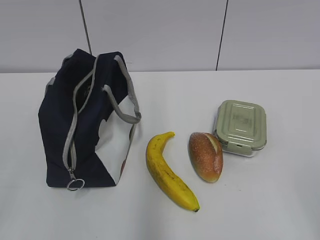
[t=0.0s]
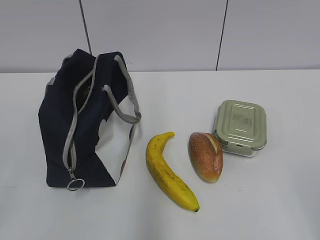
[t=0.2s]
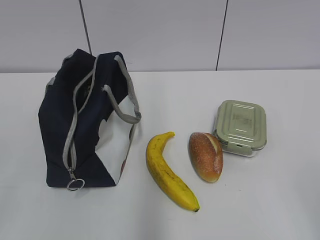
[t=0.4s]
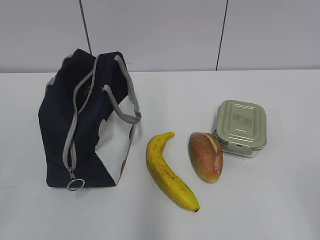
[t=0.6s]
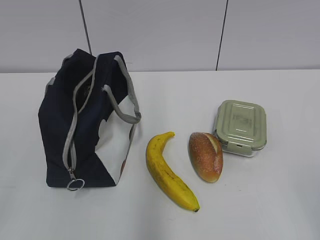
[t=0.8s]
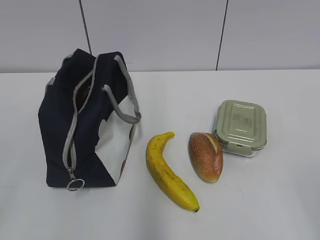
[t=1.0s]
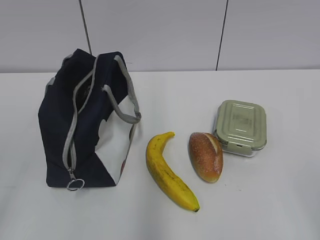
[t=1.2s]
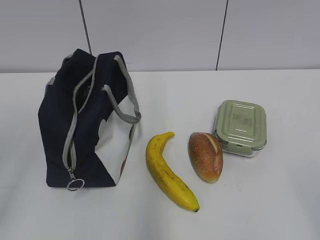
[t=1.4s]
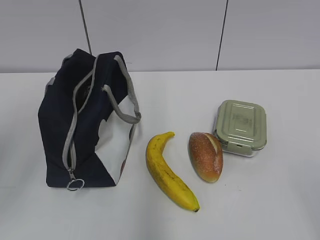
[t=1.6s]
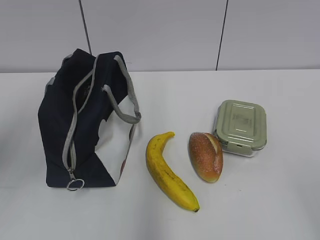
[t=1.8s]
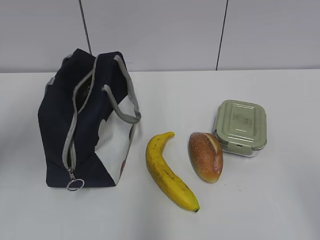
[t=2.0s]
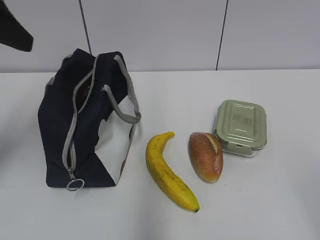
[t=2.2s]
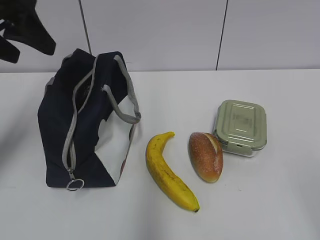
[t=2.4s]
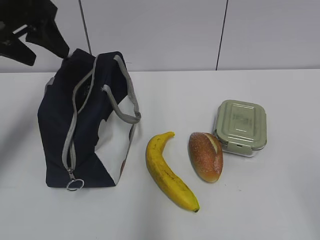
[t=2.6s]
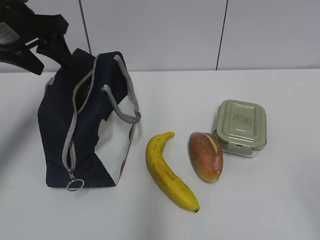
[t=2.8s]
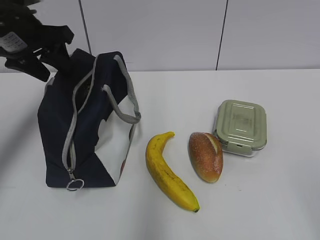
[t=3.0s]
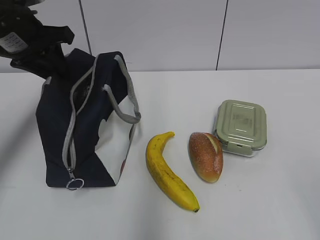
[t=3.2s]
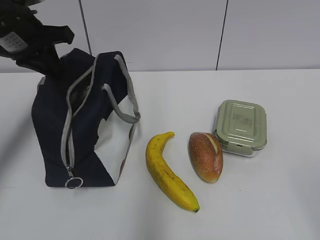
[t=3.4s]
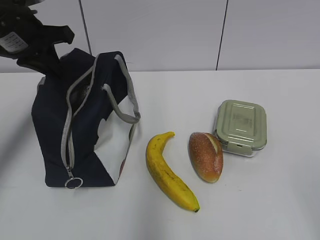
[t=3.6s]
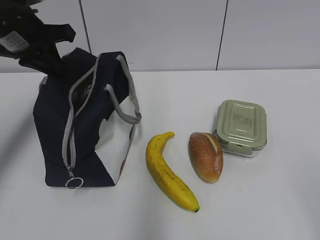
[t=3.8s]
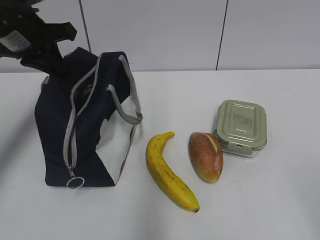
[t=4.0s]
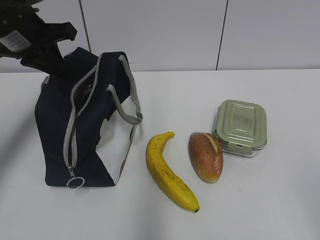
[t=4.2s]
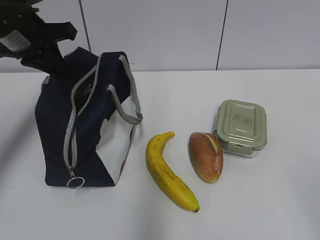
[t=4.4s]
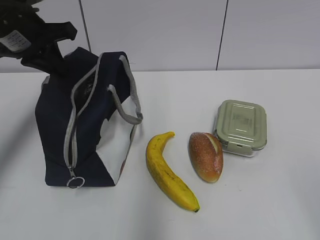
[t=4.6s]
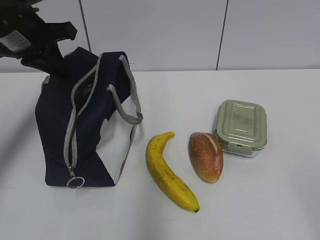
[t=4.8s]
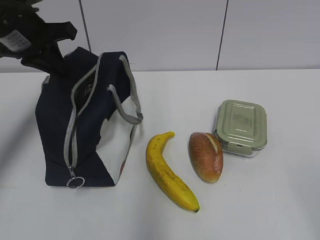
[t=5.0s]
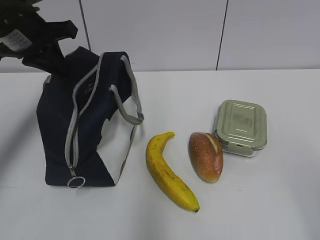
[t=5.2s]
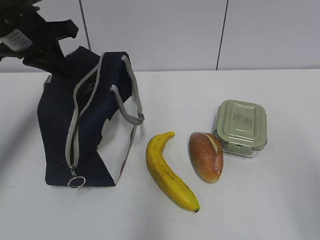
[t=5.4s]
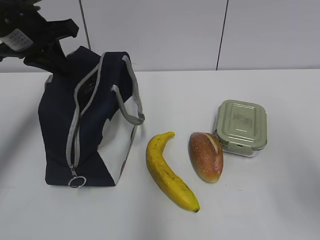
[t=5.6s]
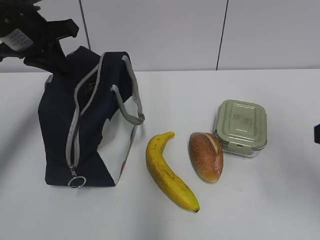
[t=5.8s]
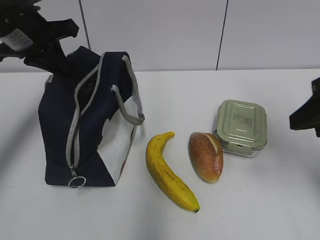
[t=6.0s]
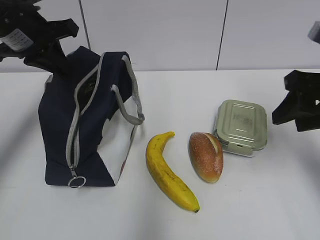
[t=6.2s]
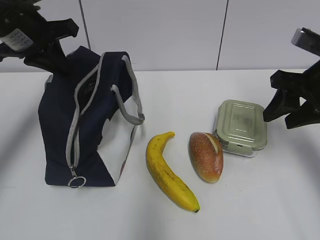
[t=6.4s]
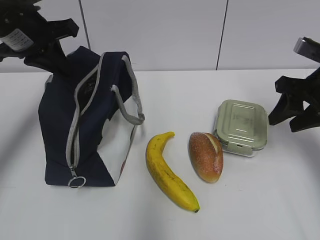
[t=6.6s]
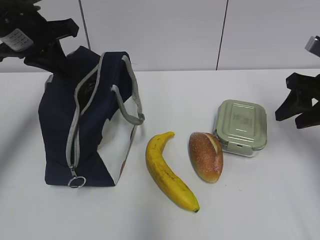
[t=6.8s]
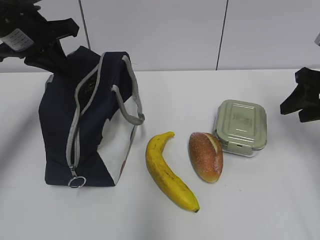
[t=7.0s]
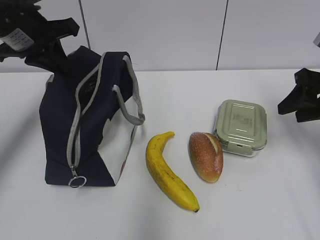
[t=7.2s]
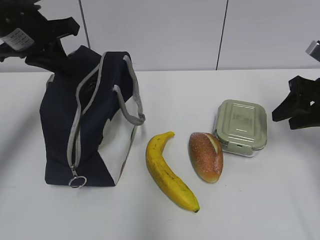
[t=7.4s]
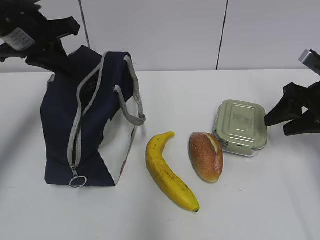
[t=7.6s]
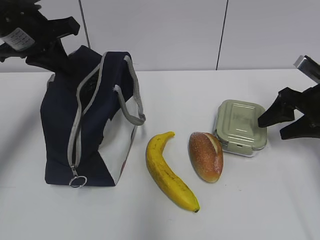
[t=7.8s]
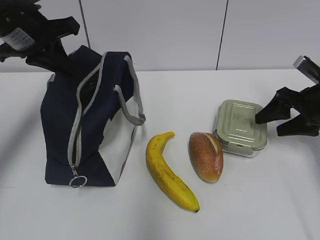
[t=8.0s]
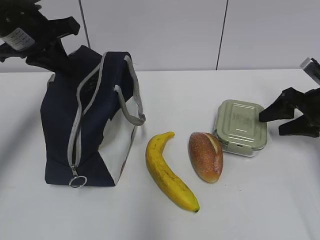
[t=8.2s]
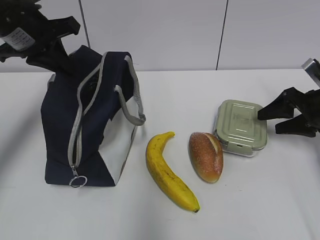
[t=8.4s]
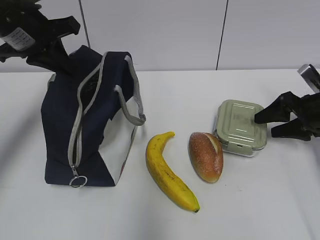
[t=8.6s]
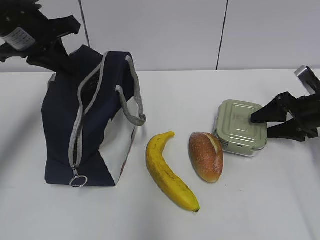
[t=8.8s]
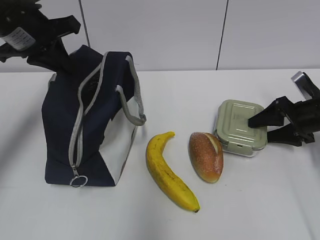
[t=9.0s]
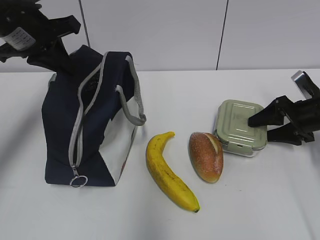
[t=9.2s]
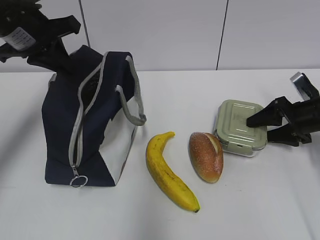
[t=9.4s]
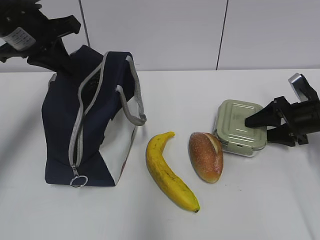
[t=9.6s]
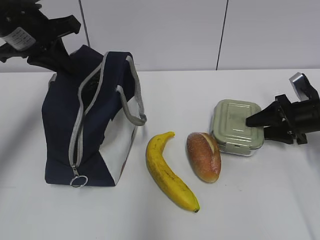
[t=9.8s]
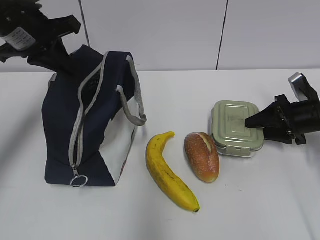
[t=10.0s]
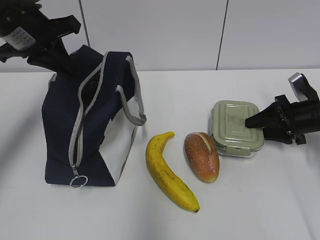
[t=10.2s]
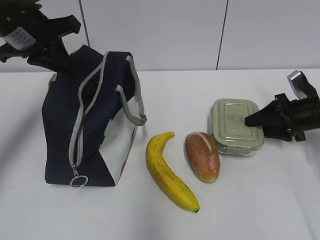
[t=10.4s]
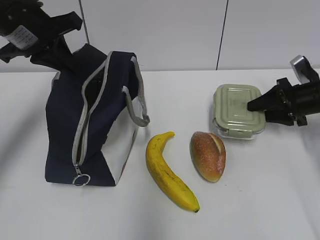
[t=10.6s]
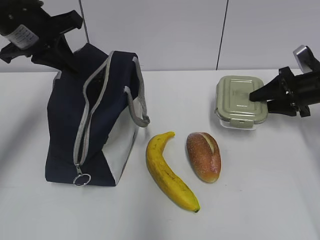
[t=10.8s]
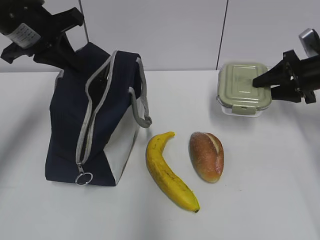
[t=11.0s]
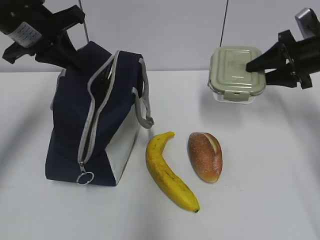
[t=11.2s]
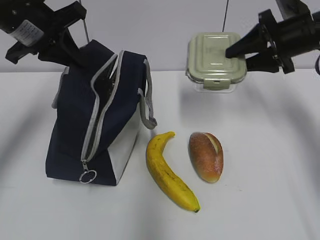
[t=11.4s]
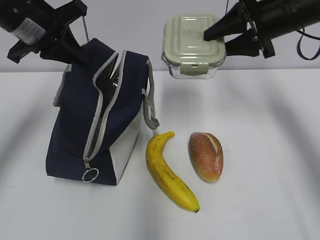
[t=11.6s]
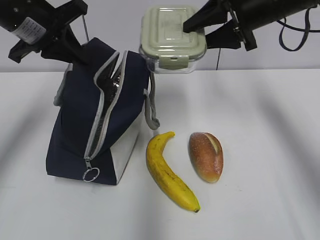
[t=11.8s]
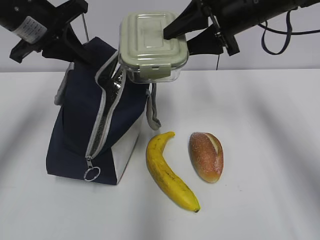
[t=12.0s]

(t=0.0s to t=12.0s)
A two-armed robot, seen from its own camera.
Step, t=0.0s - t=10.2s: Grab the lunch box with your right hand.
t=1.6s - t=3.0s: The left gripper goes roughly 25 cm forward.
t=3.0s - t=4.4s: The left gripper closes its fingers.
t=4.4s - t=6.0s: The right gripper is displaced forward by about 20 cm.
t=6.0s - t=7.6s: The right gripper shifts about 15 cm forward, downward and to the right.
t=7.6s - t=9.0s: The right gripper heads downward, covering roughly 10 cm.
t=9.0s - t=10.4s: There are only small adjustments of the grippers.
t=10.4s - t=12.0s: The right gripper is displaced upward and to the left by roughly 25 cm.

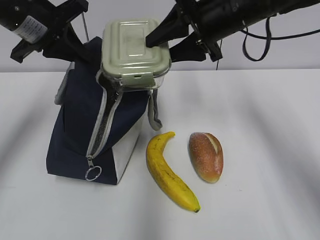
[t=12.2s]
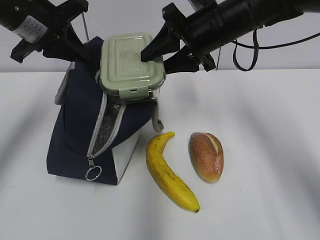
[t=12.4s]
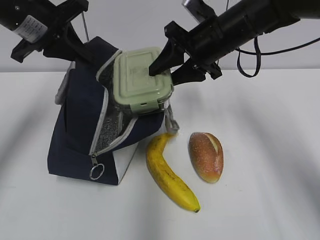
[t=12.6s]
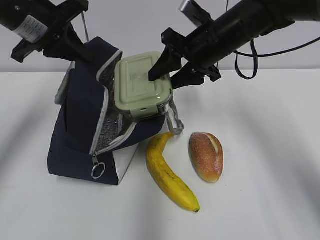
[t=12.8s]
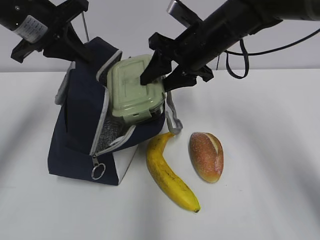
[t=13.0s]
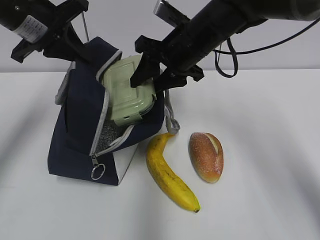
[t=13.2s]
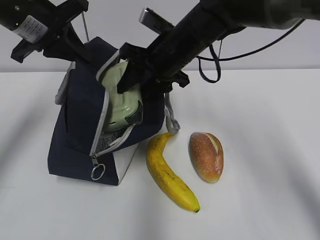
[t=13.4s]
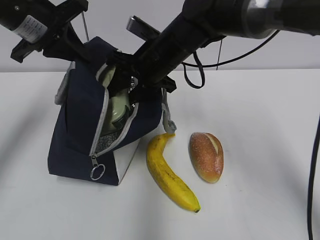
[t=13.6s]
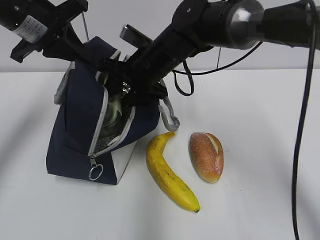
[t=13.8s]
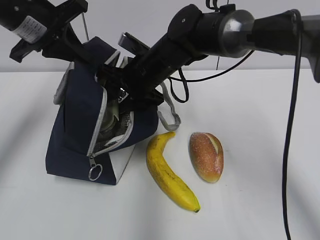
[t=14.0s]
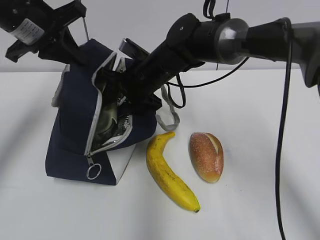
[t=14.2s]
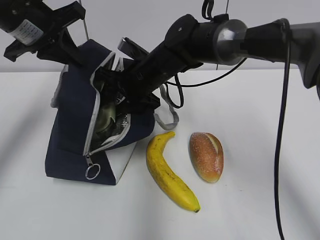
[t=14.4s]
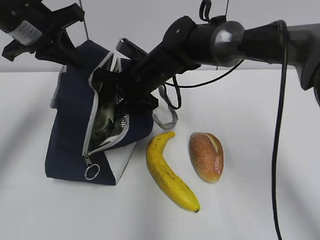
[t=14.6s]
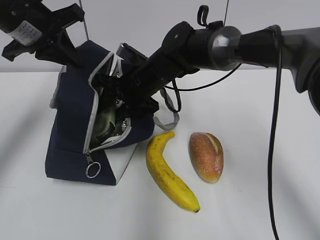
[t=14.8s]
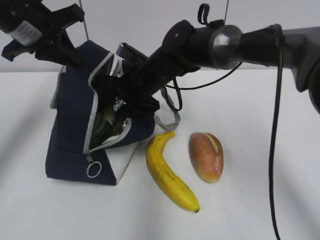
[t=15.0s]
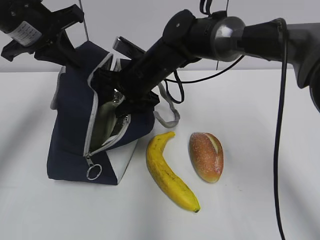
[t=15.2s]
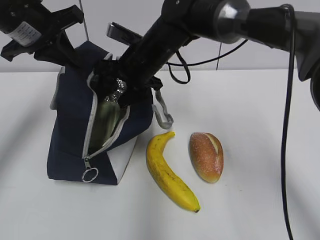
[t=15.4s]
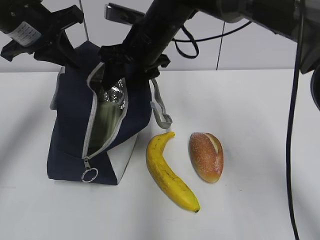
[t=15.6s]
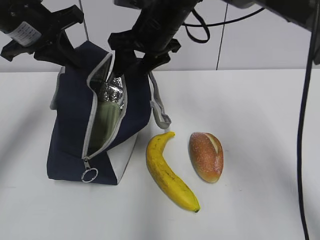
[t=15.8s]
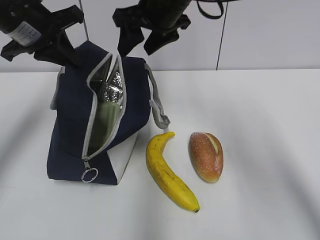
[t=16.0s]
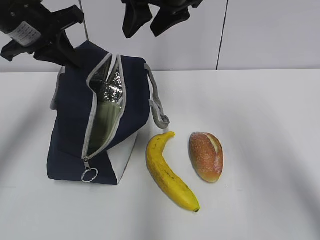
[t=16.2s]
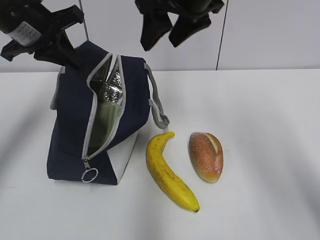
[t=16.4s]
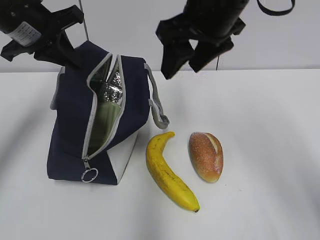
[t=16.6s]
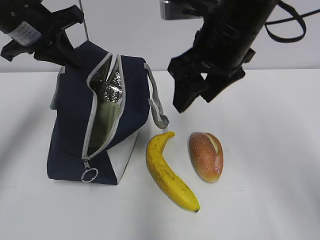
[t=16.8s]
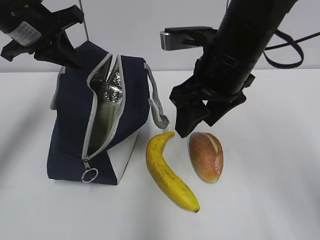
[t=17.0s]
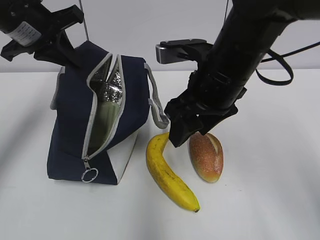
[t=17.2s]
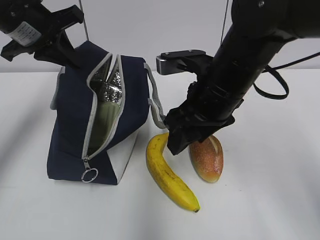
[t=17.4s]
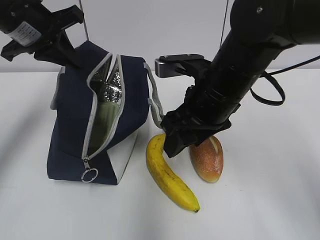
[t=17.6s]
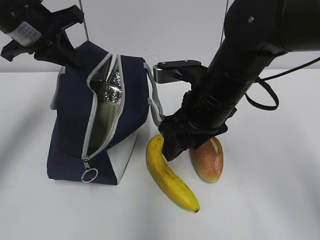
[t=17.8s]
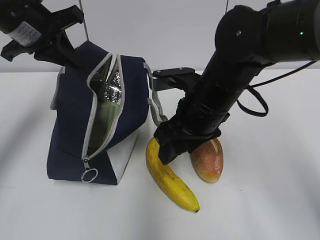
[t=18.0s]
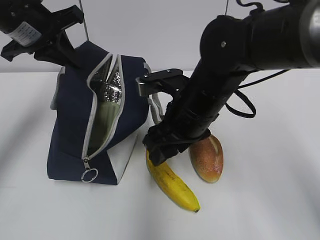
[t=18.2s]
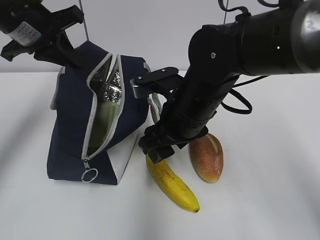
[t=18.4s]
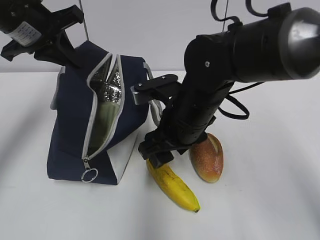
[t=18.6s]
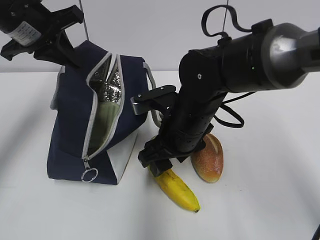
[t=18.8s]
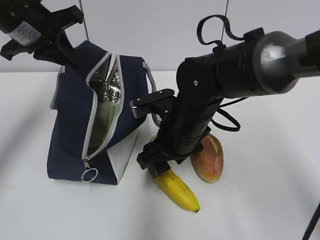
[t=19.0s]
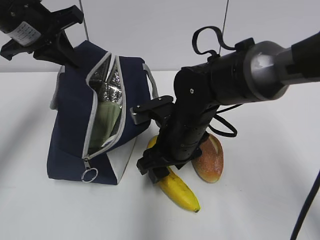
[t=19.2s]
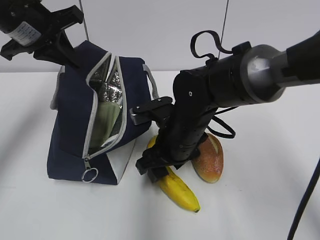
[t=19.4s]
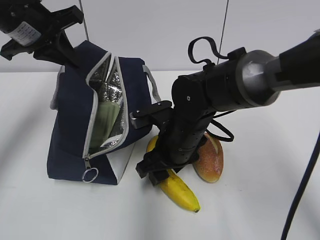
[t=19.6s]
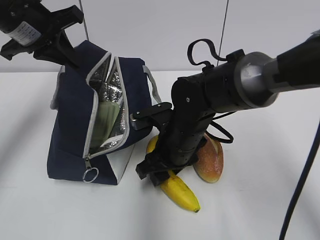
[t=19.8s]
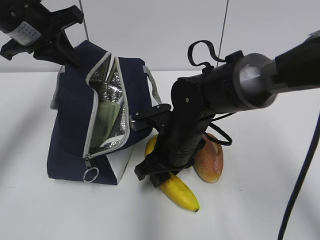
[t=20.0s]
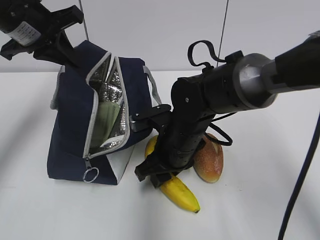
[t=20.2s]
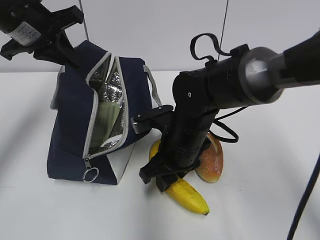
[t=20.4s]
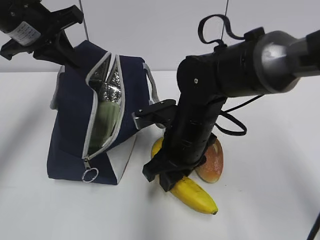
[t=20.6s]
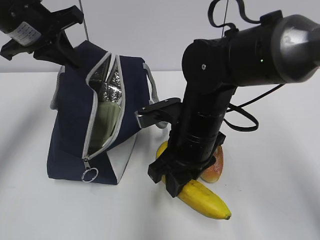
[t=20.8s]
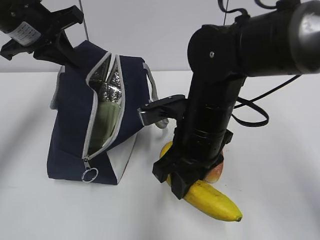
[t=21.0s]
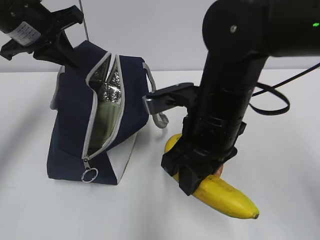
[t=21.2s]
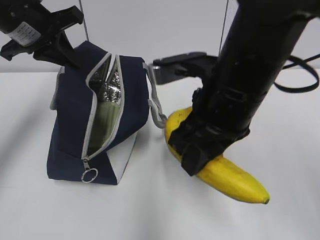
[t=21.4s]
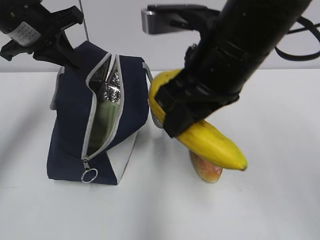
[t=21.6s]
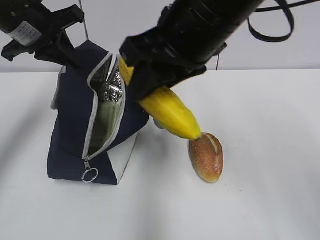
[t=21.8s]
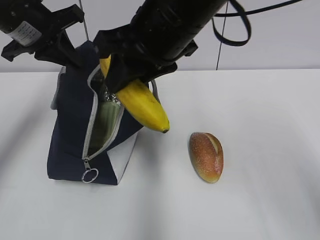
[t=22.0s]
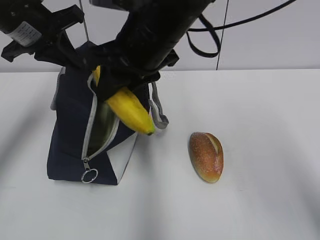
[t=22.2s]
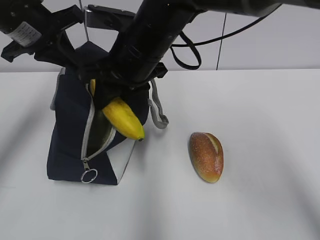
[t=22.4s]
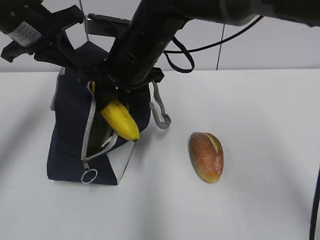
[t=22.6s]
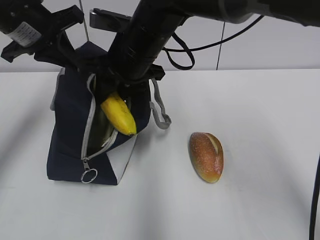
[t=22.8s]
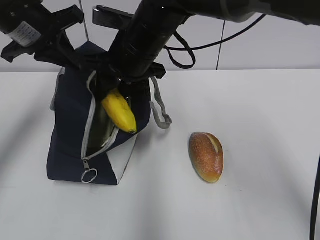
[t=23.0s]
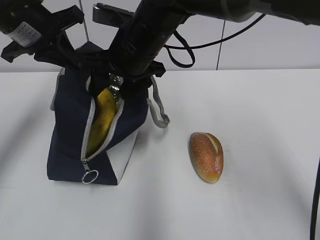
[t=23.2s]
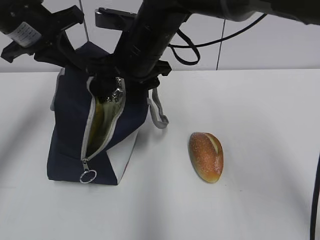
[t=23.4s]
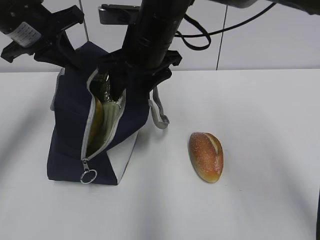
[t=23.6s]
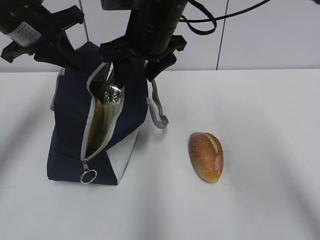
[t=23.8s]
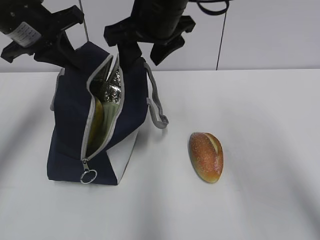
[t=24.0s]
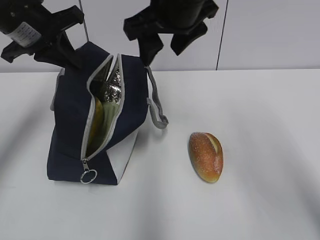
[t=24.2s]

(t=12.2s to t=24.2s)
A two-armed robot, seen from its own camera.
Step, t=12.4s - t=15.0s: Place it into the bag with your right hand.
Step, t=15.2s - t=20.2s: Grab the banana with your right hand.
Step, t=20.4s - t=23.2s: Place it into the bag with your right hand.
t=12.2s - t=13.8s: The right gripper heads to the left and downward, covering roughly 15 cm.
t=15.2s - t=16.6s: The right gripper goes about 20 cm upward, to the right and backward.
t=16.6s - t=18.2s: The right gripper is displaced downward by about 15 cm.
t=18.2s - t=19.8s: The right gripper shifts some 10 cm downward.
t=19.8s - t=21.2s: The right gripper shifts approximately 10 cm upward and backward.
t=21.2s - t=22.6s: The right gripper travels forward and to the left by approximately 15 cm.
t=22.6s - t=24.2s: The right gripper moves upward and to the right, approximately 10 cm, and opens its fingers.
